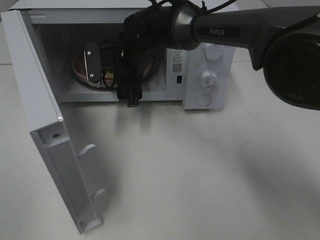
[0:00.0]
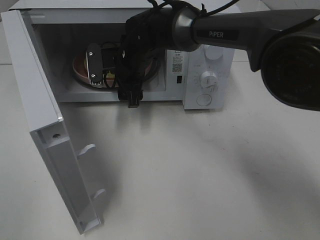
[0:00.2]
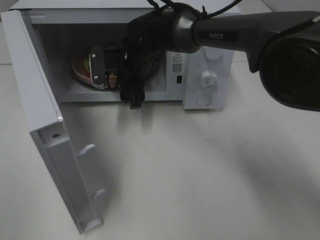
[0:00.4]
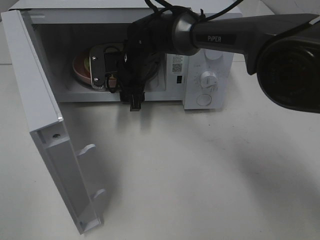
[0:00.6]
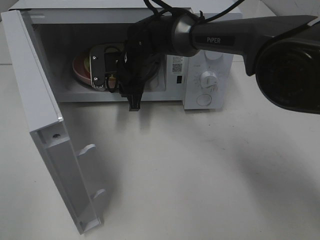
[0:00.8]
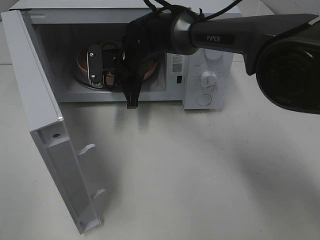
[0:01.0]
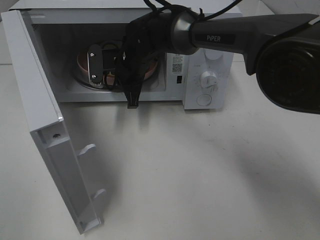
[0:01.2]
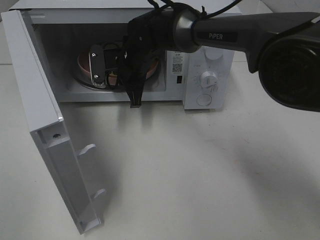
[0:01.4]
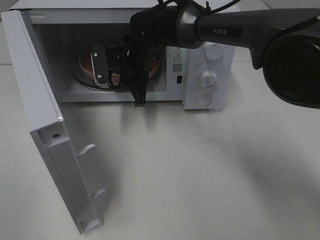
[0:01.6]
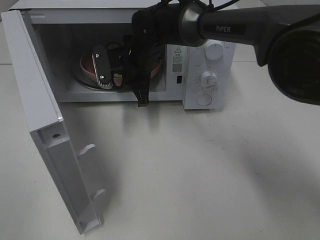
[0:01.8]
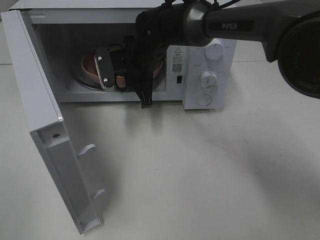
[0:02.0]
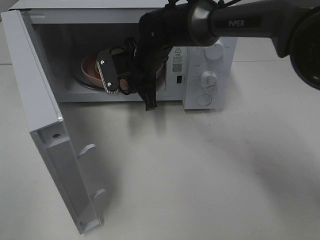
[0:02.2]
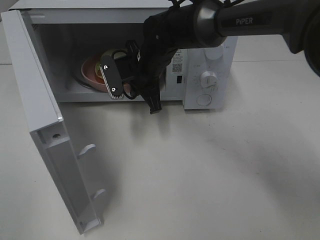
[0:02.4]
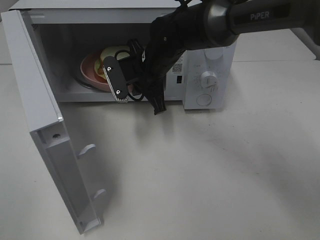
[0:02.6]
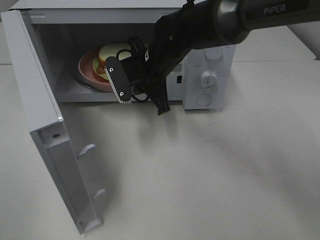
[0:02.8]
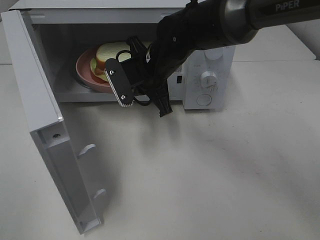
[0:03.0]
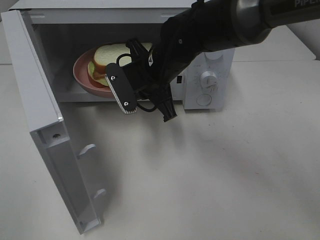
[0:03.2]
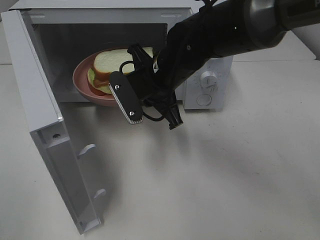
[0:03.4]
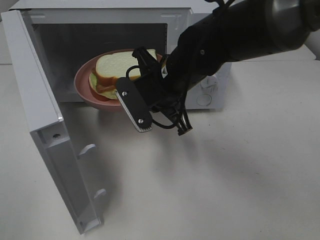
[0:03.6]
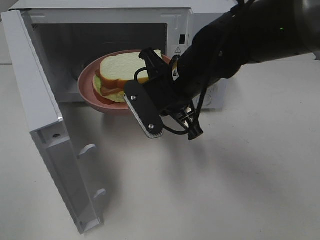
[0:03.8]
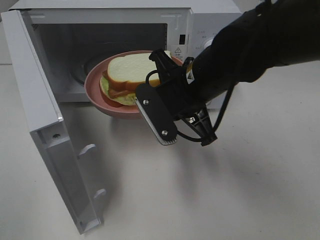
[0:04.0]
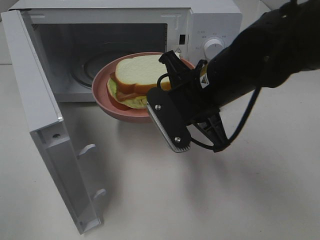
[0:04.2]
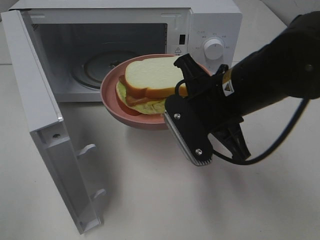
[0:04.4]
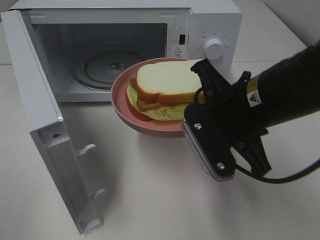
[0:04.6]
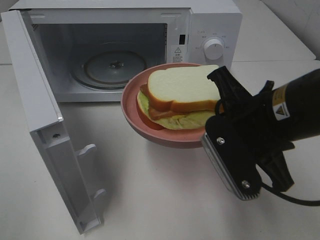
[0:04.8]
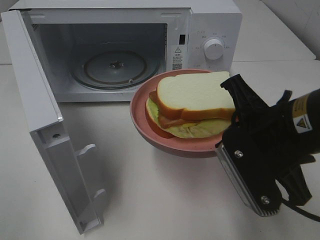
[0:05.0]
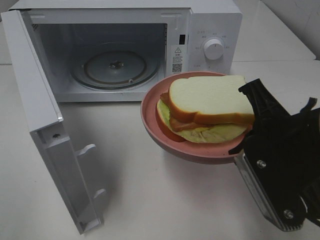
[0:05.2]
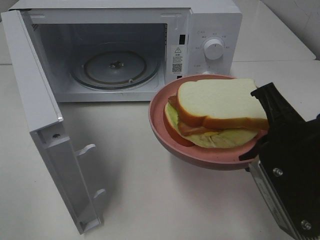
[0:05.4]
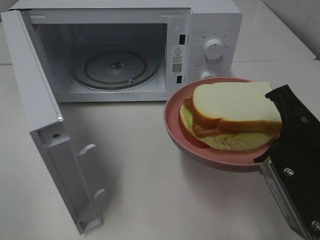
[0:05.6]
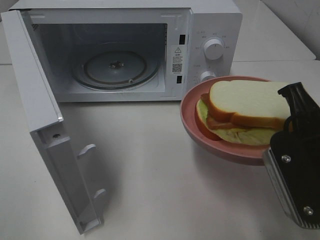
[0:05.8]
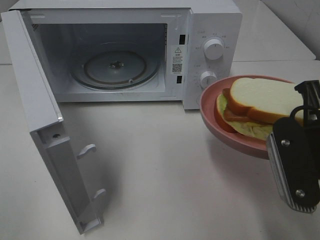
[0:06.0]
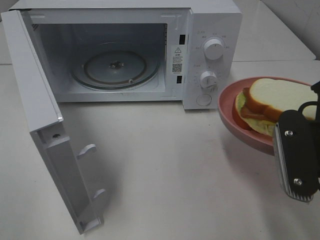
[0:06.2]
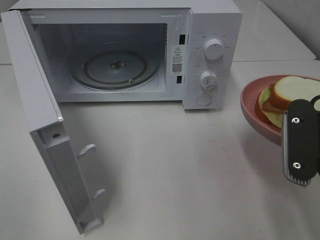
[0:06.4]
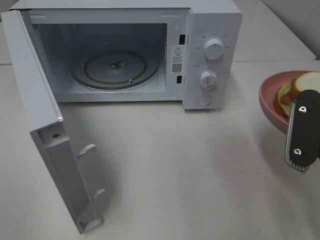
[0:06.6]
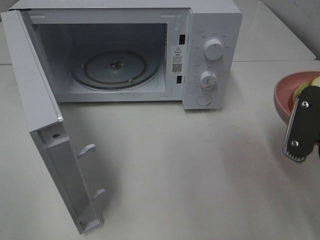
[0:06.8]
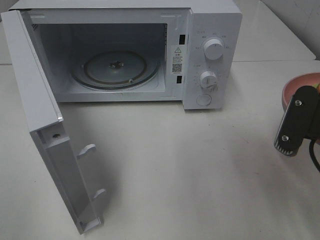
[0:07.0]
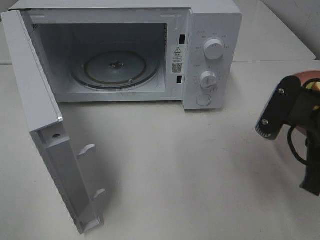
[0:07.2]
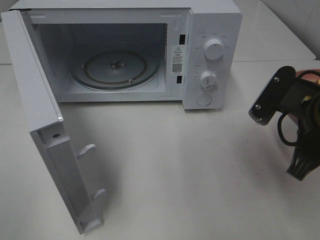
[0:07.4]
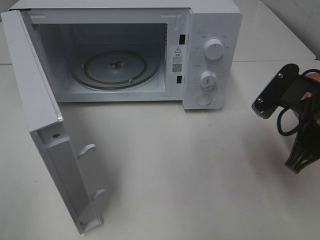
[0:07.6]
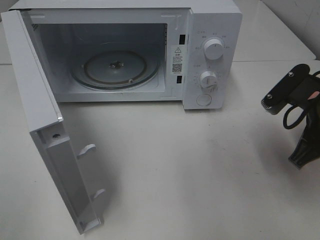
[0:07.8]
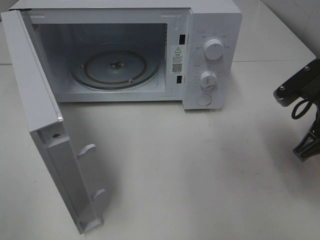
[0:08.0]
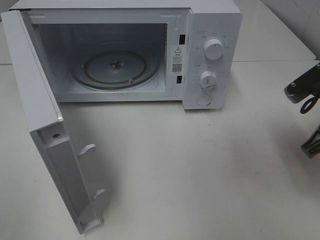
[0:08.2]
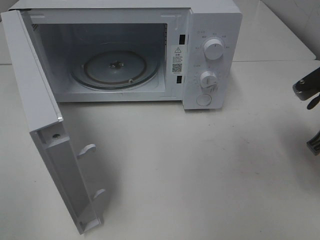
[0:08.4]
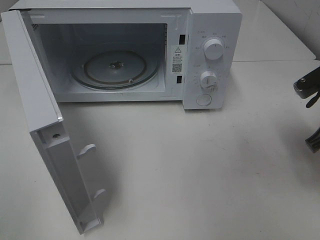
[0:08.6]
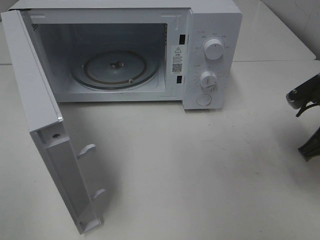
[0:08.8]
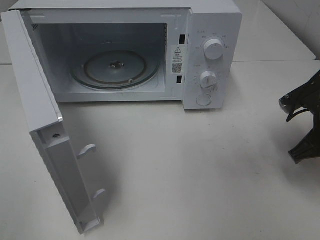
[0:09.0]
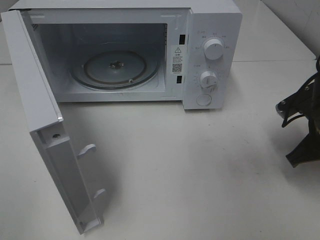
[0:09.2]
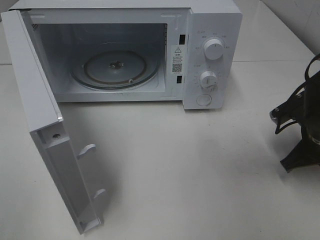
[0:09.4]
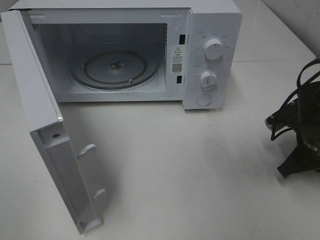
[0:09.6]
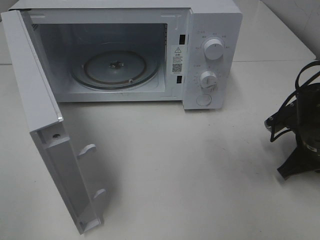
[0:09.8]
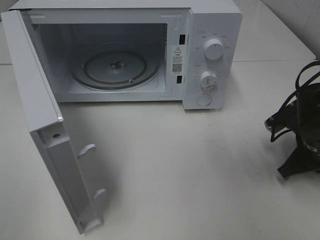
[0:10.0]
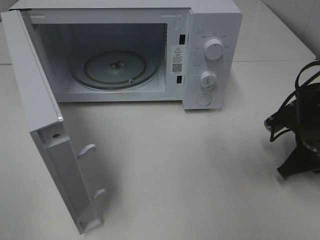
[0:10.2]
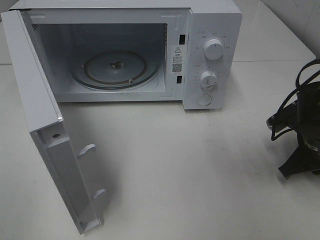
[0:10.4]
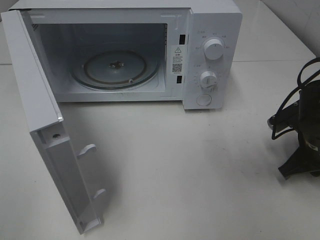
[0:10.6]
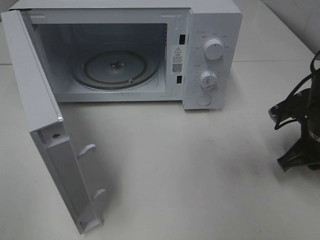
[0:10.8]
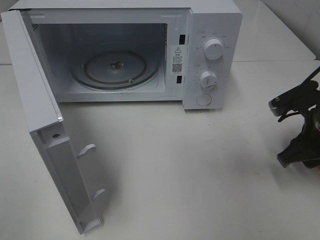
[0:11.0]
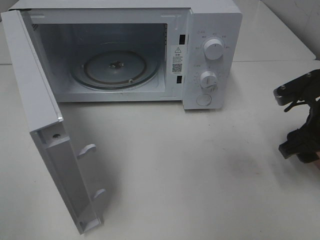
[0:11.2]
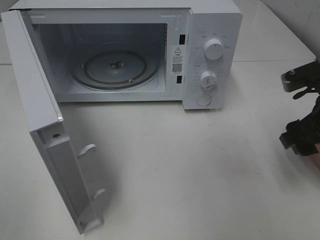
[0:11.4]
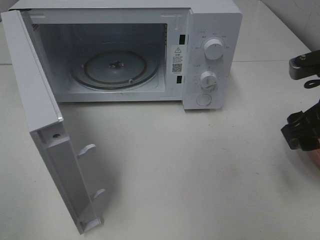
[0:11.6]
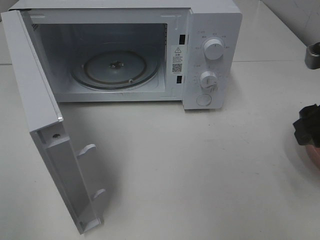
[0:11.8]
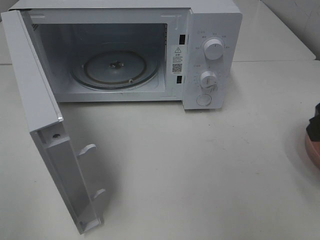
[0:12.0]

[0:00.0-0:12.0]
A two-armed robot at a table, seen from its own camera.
Task of the whole recording: Heat Sandwich.
Step, 0:01.8 to 0:11.4: Right hand: place the plate on the table.
0:00.0 to 0:01.6: The right gripper closes up.
0:01.6 to 0:03.0: The right gripper shifts about 5 cm backward.
0:03.0 to 0:04.4: The right gripper is displaced backward and to the right by approximately 15 cm.
0:04.4 to 0:06.0: The right gripper is displaced to the right and backward by approximately 15 cm.
0:06.0 to 0:07.6: The right gripper moves forward, some 5 cm.
0:07.6 to 0:09.0: The right gripper shifts approximately 10 cm to the right and downward.
0:09.0 to 0:10.4: The grippers stay close to where they were, moving slightly.
0:10.4 to 0:12.0: The right gripper travels upward and backward by roughly 20 cm, and opens its fingers.

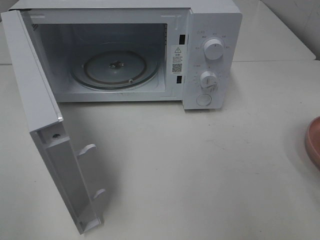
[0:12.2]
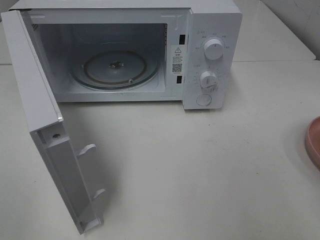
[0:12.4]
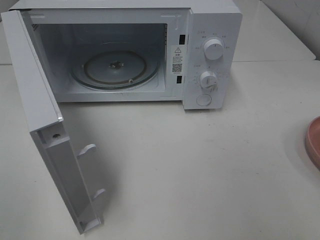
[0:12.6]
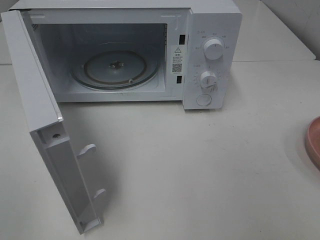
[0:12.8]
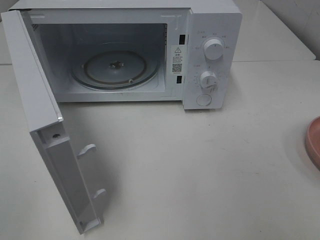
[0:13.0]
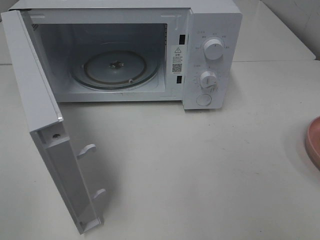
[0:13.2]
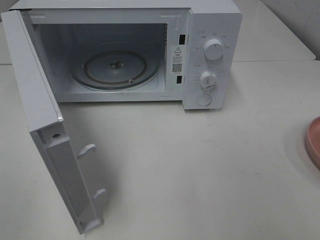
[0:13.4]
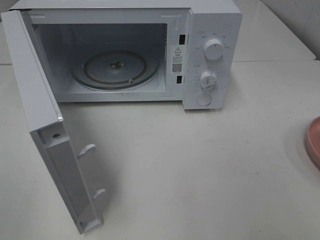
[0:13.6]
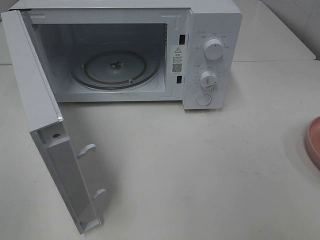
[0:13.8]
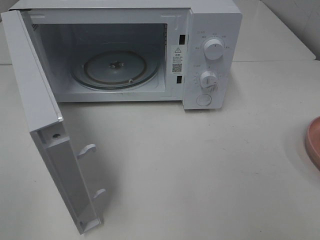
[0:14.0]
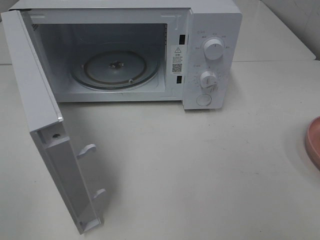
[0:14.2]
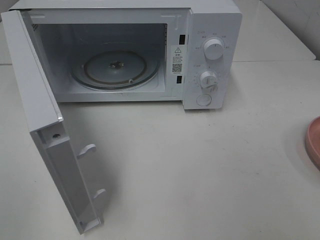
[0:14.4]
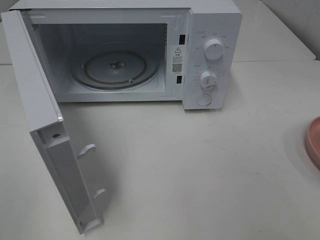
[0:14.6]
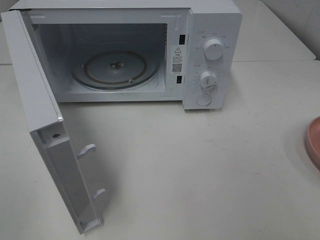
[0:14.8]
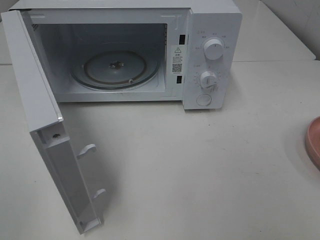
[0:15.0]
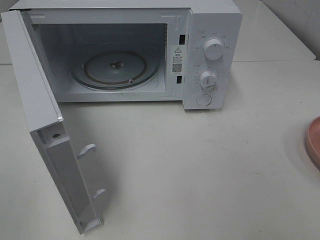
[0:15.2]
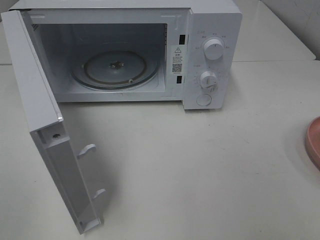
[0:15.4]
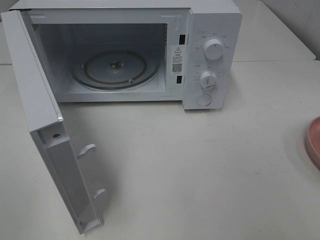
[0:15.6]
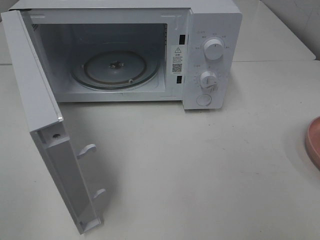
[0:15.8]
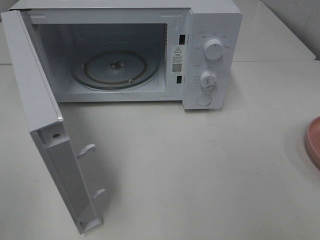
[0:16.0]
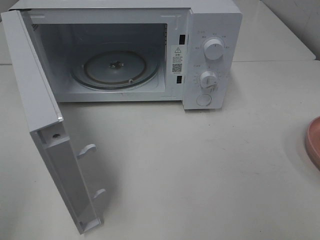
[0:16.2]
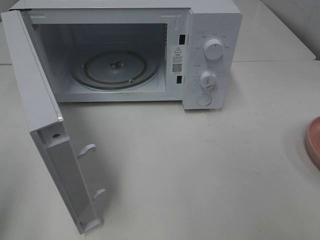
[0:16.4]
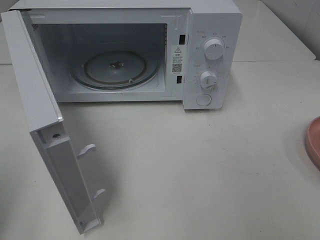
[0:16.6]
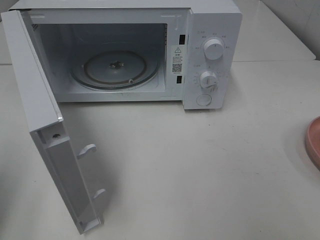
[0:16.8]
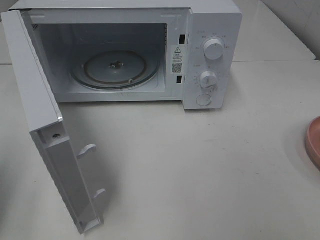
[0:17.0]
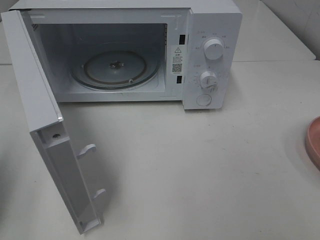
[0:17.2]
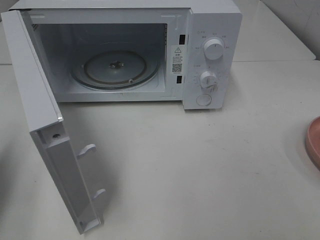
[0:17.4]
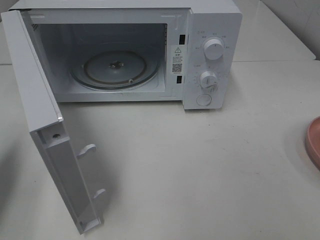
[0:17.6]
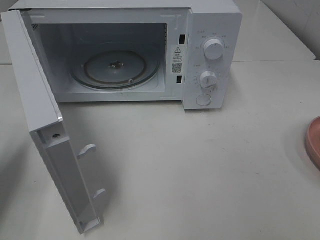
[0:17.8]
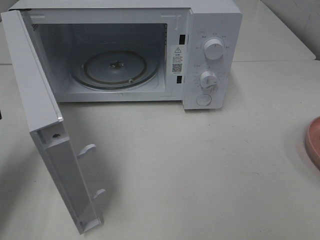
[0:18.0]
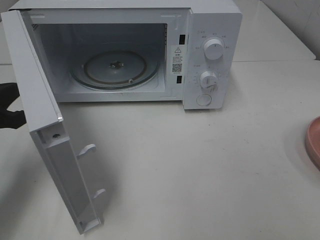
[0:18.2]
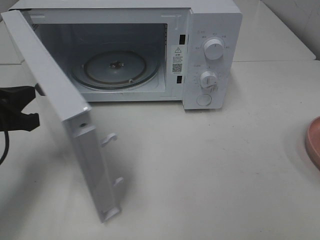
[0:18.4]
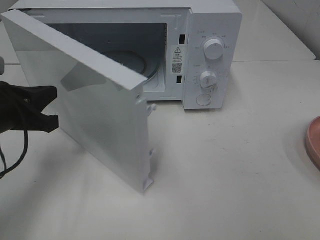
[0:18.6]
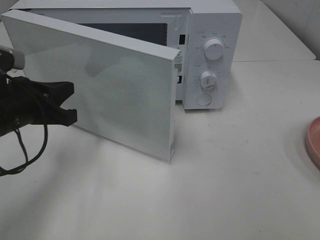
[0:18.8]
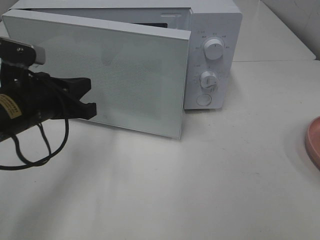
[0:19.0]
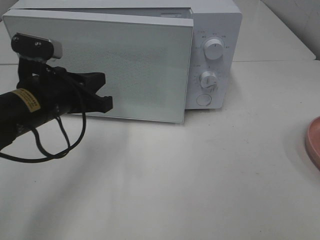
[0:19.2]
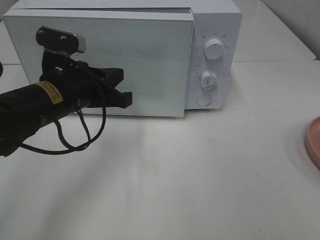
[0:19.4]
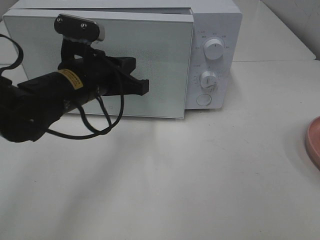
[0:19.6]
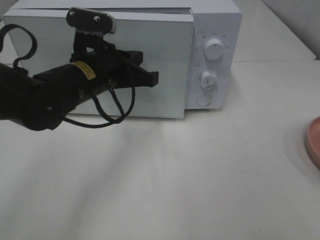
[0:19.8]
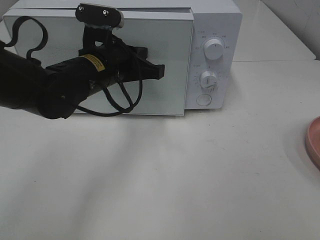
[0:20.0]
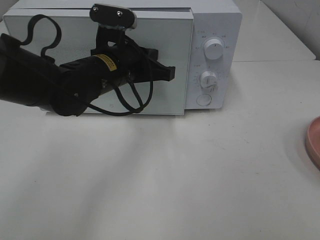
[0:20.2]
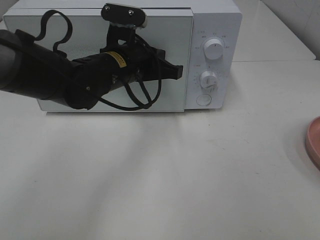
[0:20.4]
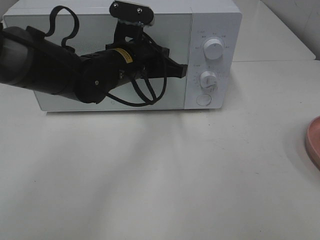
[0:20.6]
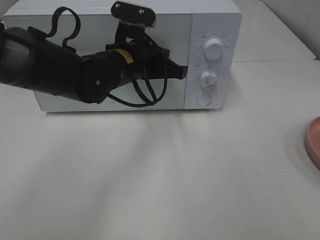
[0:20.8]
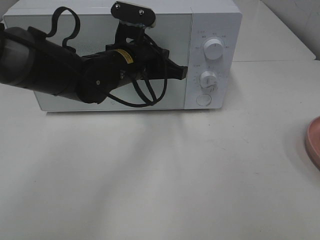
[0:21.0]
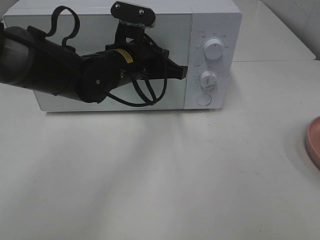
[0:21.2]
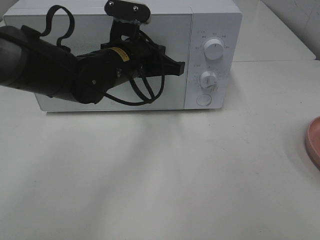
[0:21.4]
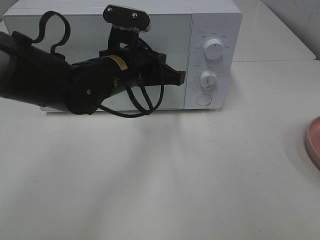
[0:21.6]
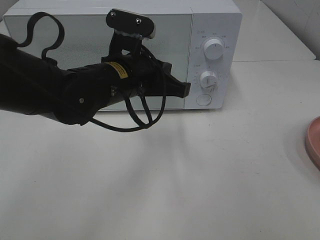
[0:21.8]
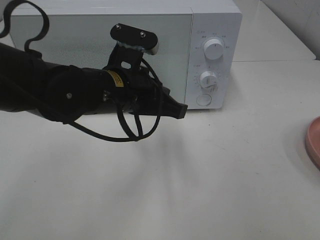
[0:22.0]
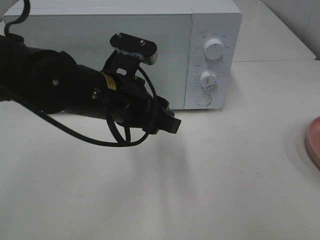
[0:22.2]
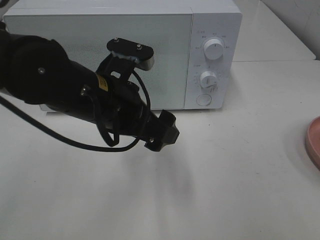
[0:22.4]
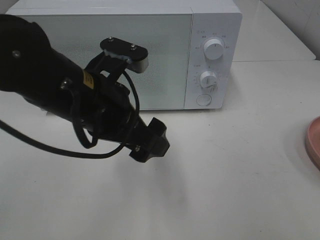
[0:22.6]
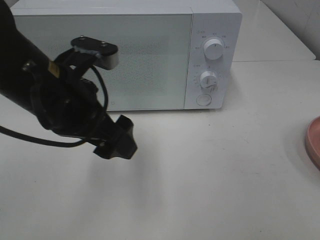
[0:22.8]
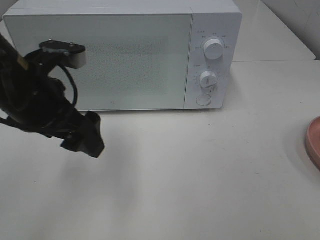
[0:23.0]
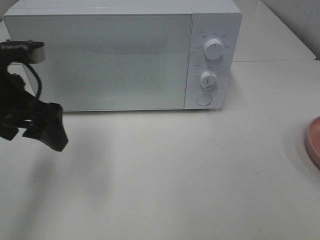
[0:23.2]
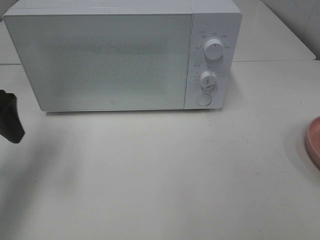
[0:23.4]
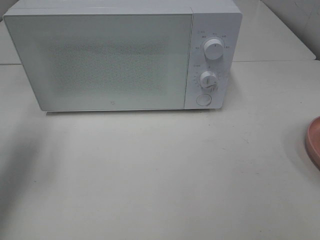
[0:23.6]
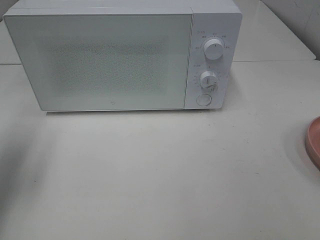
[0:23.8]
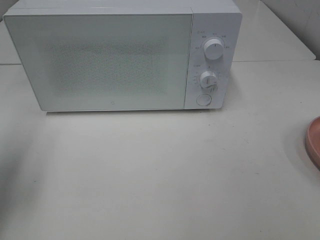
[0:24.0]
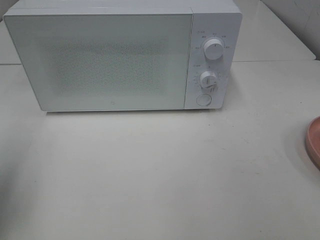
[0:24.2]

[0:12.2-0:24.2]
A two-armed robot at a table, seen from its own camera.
Task of the whole recording: Heat Sandwich.
Step, 0:12.2 to 0:21.6: Left hand: close the microwave door.
0:13.8 to 0:15.2: Neither gripper changes place.
0:16.6 to 0:18.2: The left gripper moves forward and downward, roughly 20 cm.
0:18.2 to 0:19.8: The left gripper is displaced to the right and forward by some 20 cm.
0:19.8 to 0:21.2: The left gripper changes place by approximately 5 cm.
0:21.2 to 0:22.6: The left gripper is displaced backward by some 15 cm, and opens up.
0:22.6 to 0:24.2: The left gripper heads to the left, covering some 25 cm.
